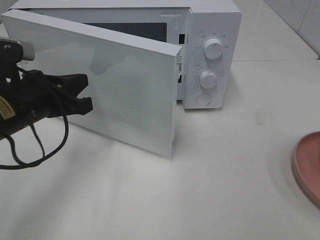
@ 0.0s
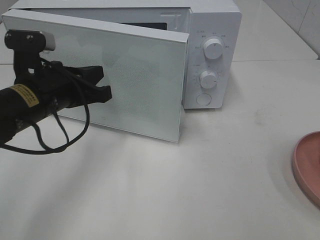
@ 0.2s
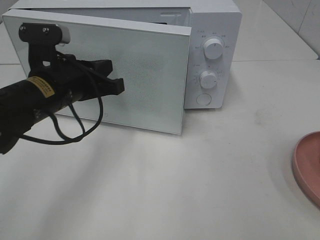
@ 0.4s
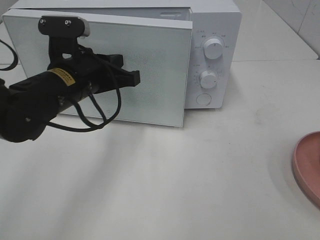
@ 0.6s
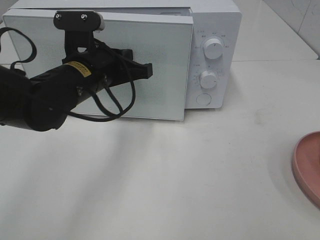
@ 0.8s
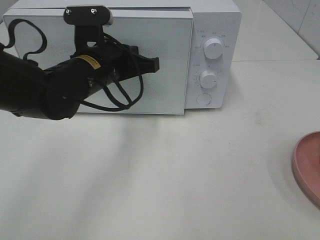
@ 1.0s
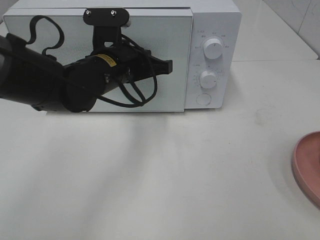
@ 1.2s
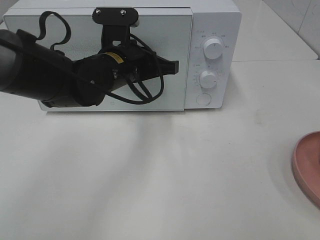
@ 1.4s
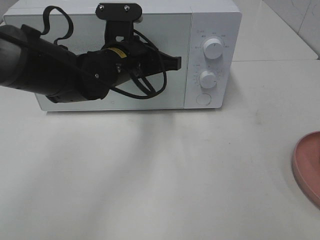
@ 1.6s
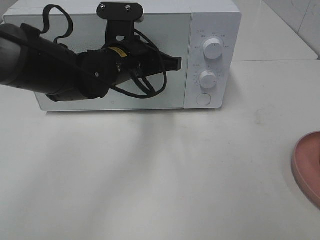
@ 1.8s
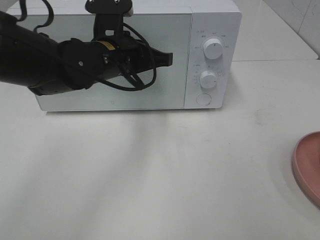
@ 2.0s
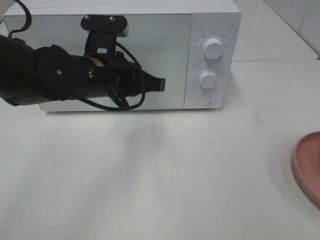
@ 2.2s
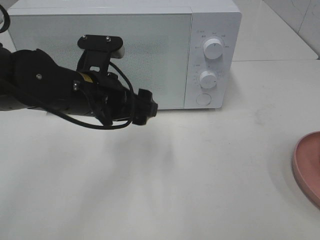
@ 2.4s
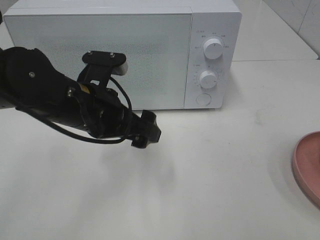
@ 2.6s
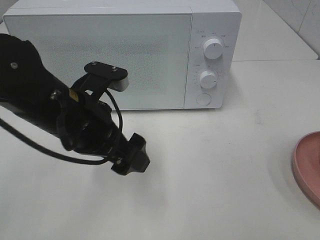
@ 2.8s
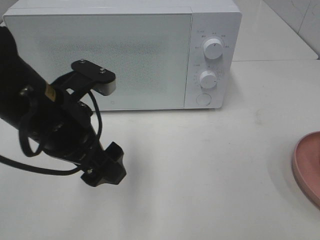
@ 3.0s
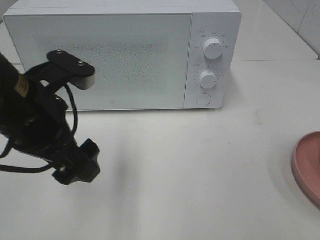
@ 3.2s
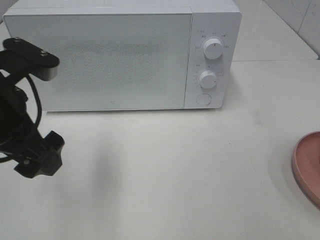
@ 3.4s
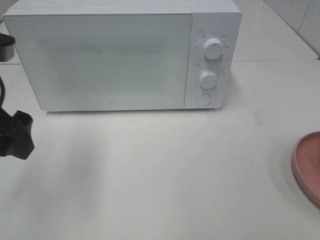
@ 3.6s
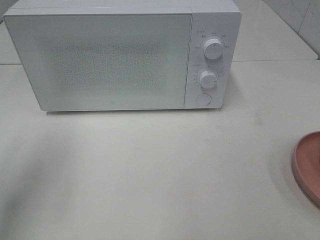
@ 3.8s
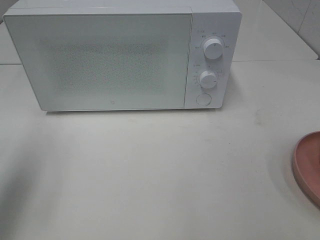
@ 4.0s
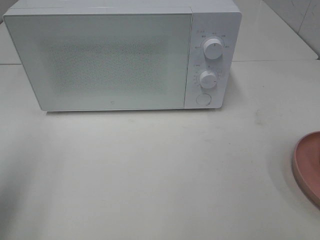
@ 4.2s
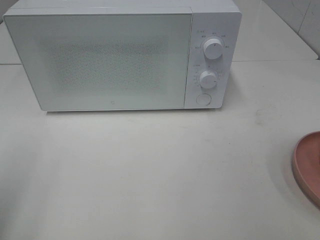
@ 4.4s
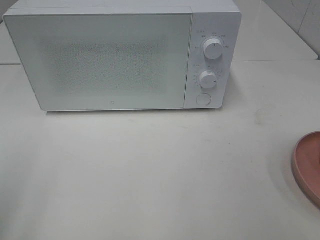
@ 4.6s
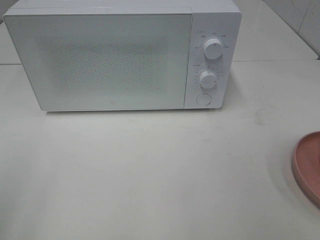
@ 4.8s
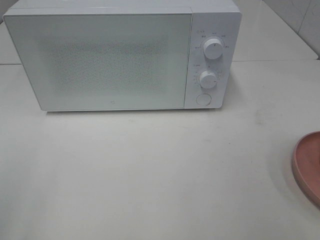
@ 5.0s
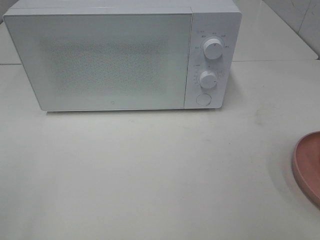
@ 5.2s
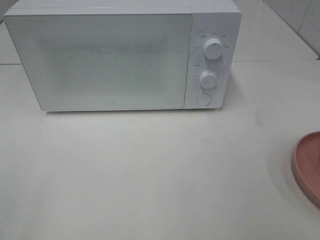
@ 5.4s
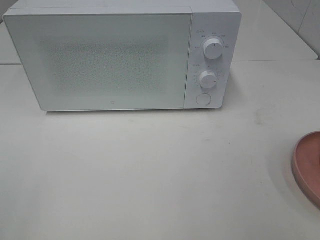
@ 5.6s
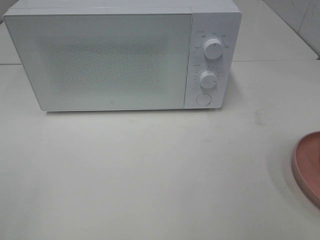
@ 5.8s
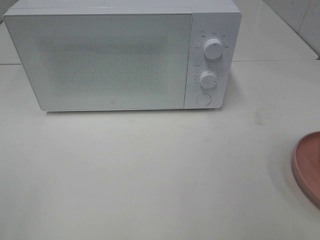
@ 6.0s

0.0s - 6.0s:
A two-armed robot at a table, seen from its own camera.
Task of the whole recording: Heat the burger.
Step, 0.0s - 2.0s: Left hand: close the microwave door.
0.0s - 1.6s: The left gripper shifts about 15 cm to the right and forward.
1.6s - 3.0s: The left gripper travels backward and to the left by approximately 15 cm, and opens its fingers.
3.0s - 4.4s: The left gripper goes about 20 cm to the left and backward.

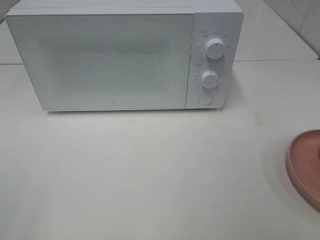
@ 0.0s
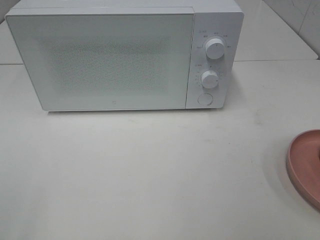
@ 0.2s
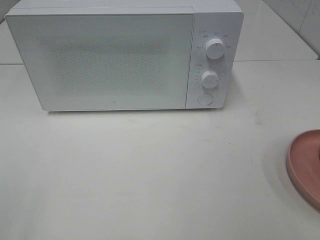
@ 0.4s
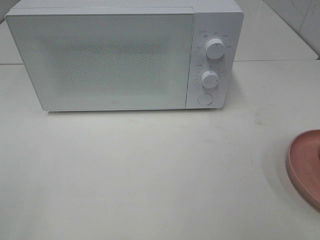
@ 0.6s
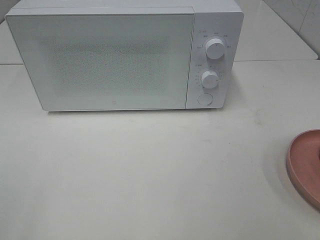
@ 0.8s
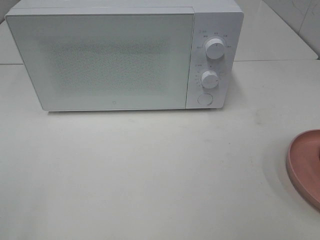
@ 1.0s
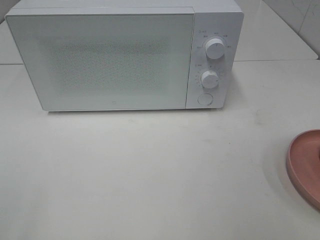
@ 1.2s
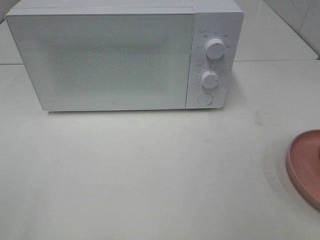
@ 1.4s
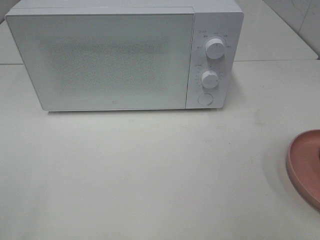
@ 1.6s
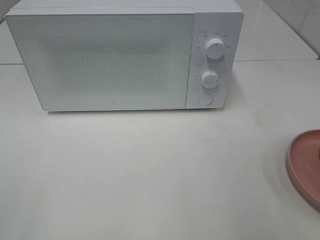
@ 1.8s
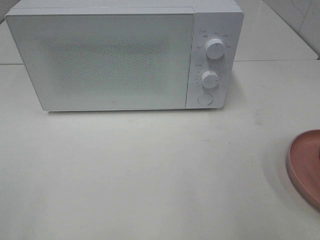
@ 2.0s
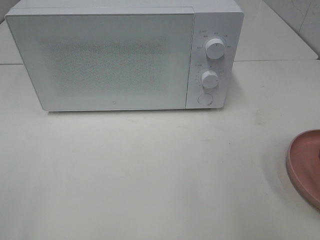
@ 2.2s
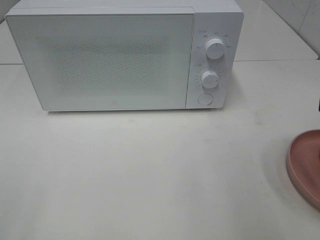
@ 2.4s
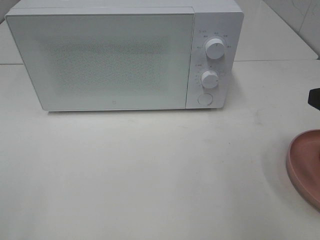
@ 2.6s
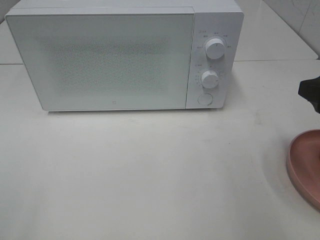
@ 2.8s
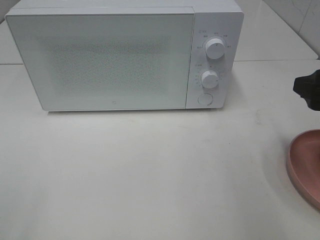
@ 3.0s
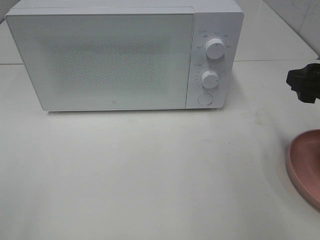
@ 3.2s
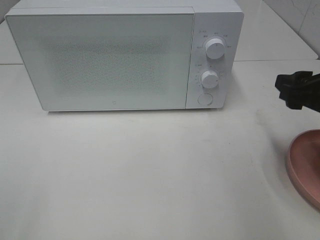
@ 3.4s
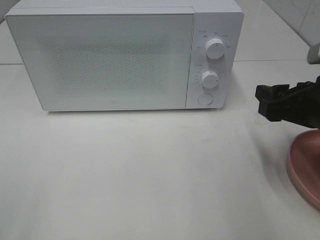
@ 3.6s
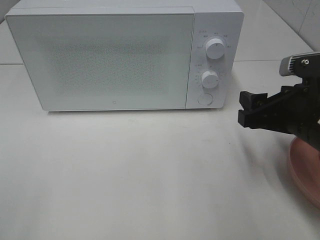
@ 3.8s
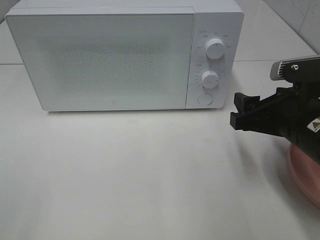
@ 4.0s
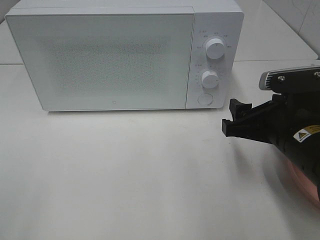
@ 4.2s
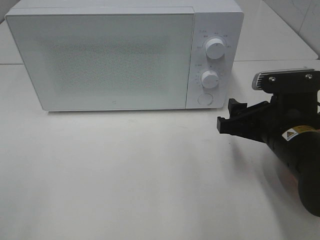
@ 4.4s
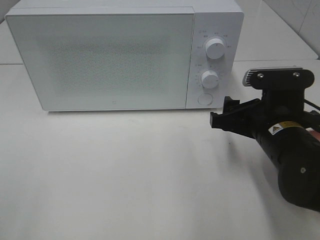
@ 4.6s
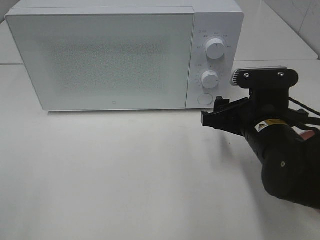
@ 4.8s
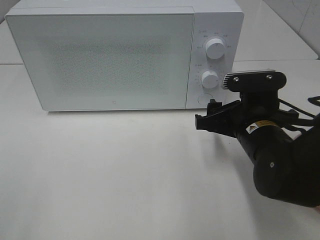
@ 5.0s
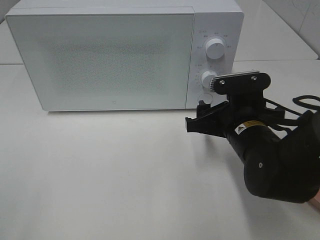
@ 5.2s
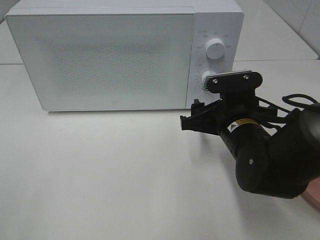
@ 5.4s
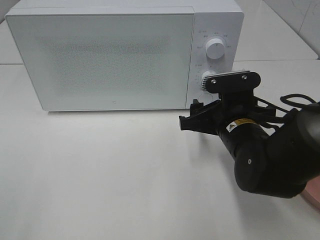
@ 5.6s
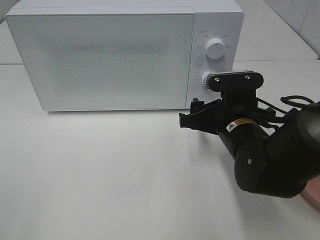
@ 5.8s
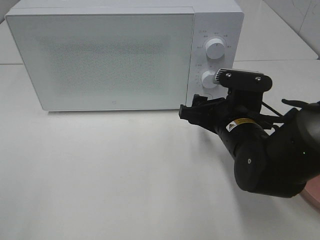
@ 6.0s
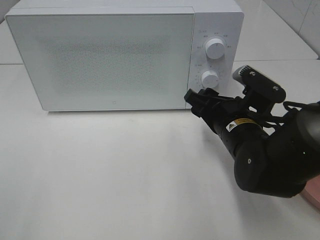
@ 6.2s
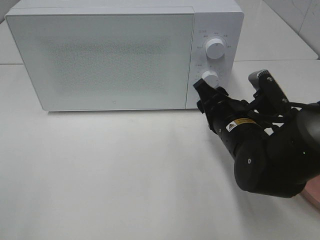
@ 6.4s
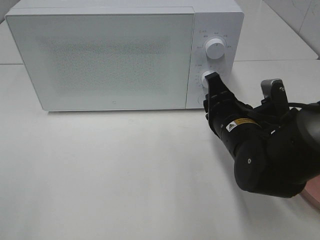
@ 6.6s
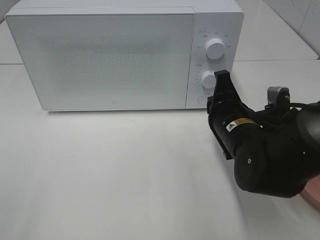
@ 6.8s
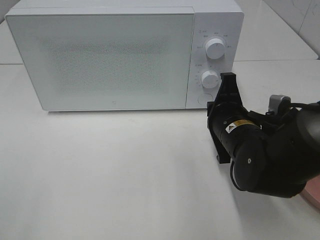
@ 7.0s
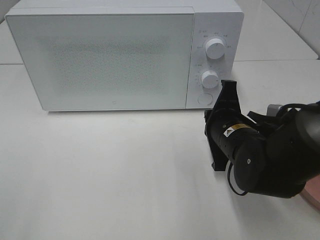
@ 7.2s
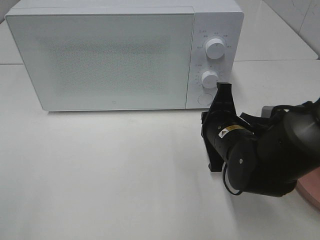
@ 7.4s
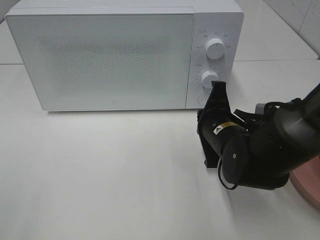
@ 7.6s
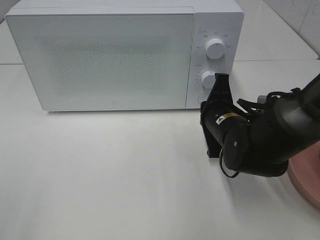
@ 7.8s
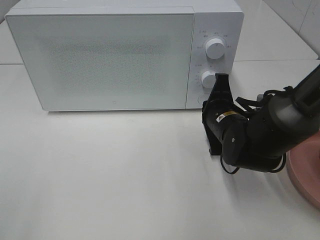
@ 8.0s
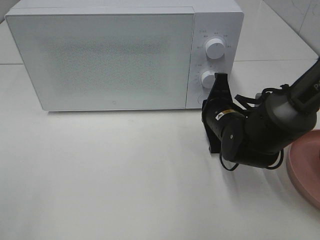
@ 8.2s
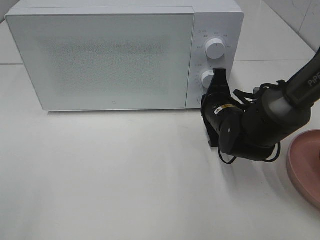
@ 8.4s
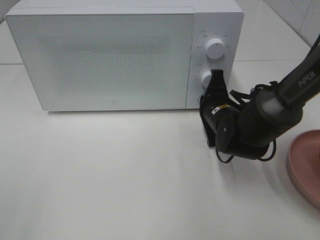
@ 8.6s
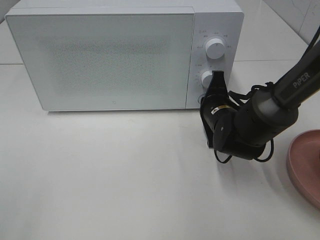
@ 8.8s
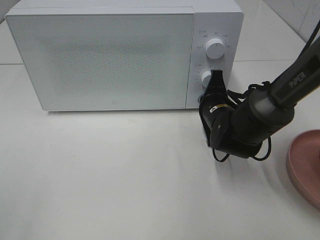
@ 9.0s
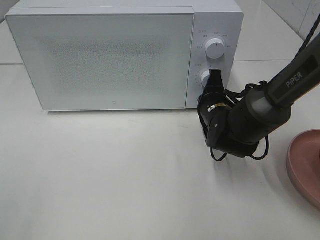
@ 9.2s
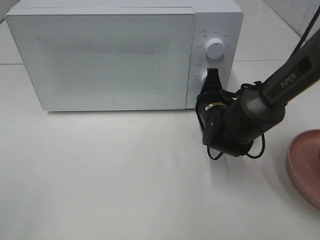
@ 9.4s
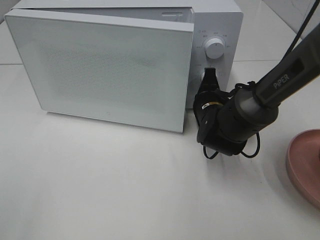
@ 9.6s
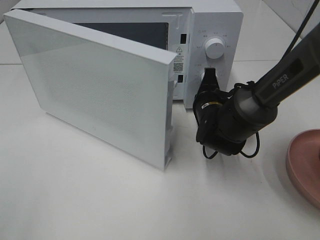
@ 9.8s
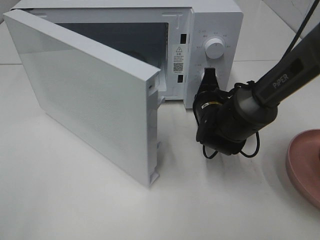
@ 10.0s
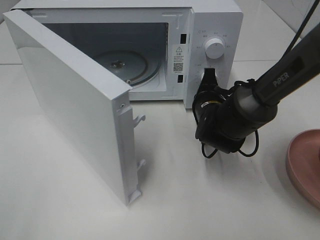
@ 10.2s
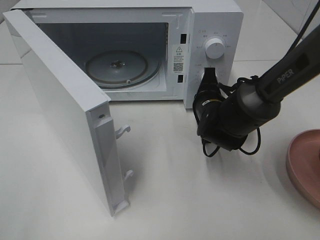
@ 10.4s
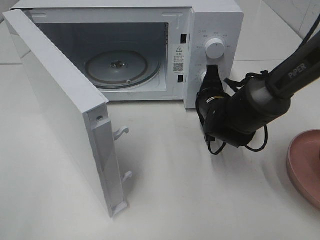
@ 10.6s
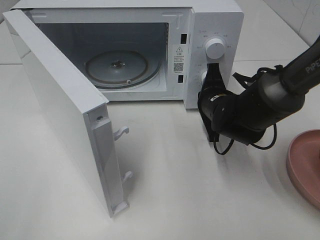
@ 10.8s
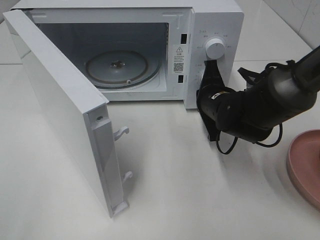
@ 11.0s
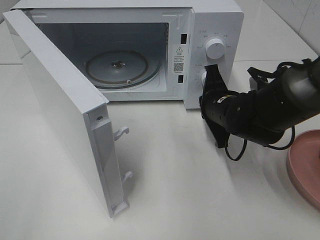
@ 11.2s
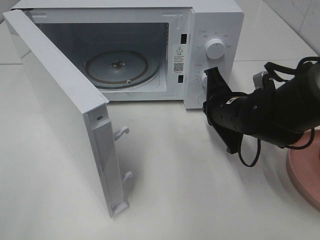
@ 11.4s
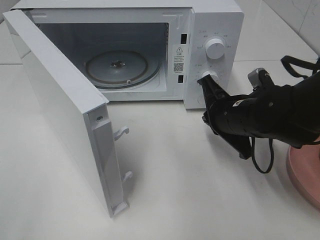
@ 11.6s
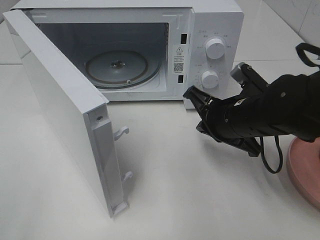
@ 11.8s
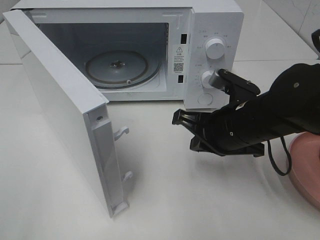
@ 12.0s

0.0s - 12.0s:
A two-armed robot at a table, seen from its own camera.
Task of the whole recording: Heat the burger.
Step, 0.0s - 11.0s: Right hand: press the switch.
1.6s - 3.0s: The right gripper is displaced forward and downward by about 15 cm.
3.0s - 4.4s: The right gripper goes some 10 cm to the left and downward.
4.4s - 6.0s: The right gripper changes place by about 10 cm.
6.0s - 7.6s: The right gripper closes its fingers.
7.6s - 9.0s: The right gripper moves forward, about 5 cm.
10.4s - 12.0s: The right gripper goes roughly 10 cm backward and upward.

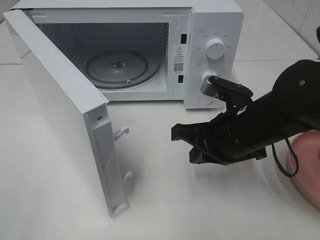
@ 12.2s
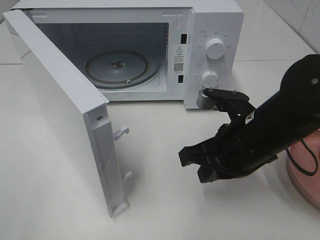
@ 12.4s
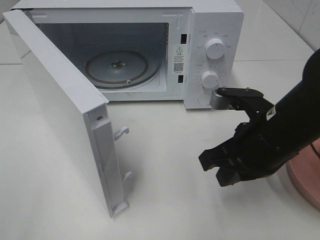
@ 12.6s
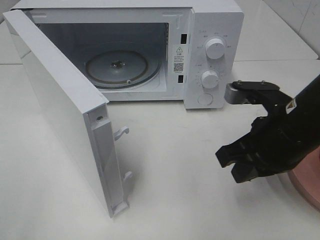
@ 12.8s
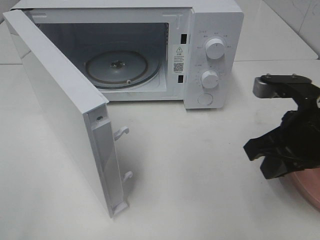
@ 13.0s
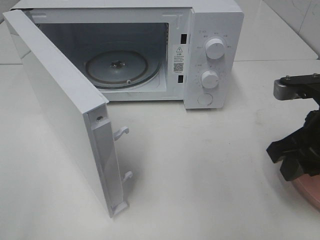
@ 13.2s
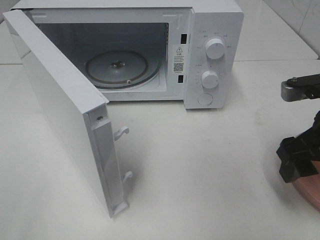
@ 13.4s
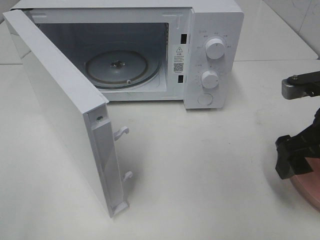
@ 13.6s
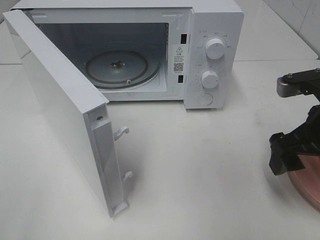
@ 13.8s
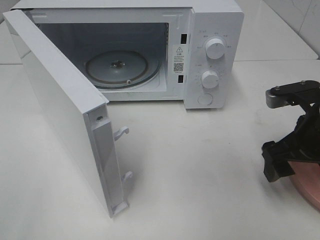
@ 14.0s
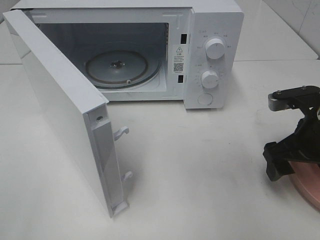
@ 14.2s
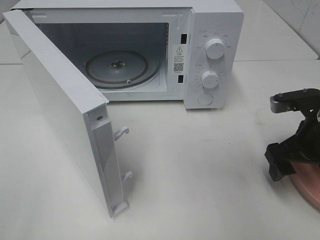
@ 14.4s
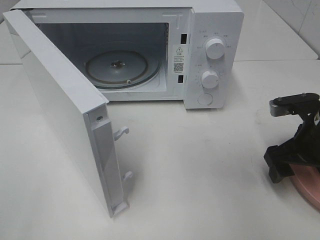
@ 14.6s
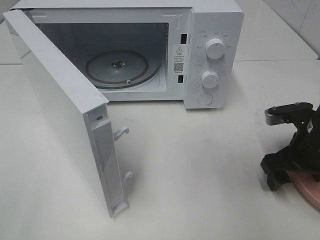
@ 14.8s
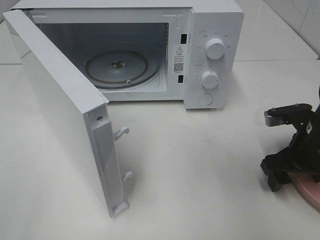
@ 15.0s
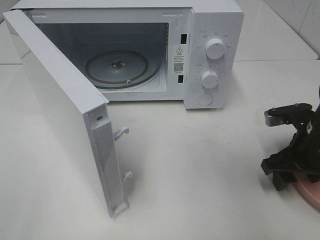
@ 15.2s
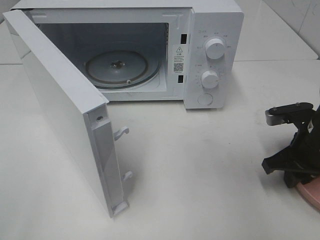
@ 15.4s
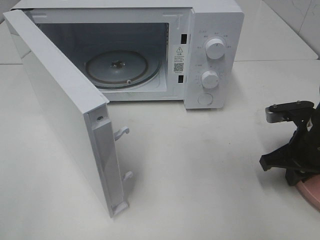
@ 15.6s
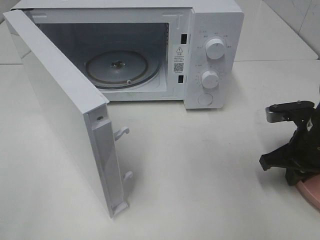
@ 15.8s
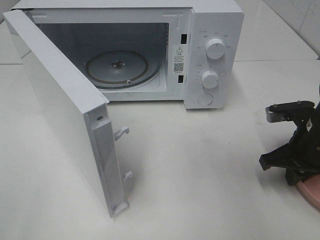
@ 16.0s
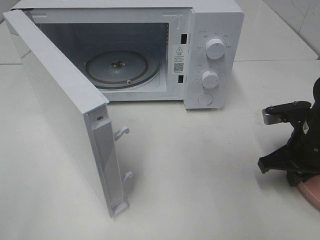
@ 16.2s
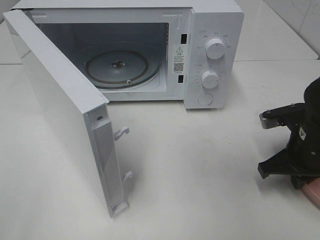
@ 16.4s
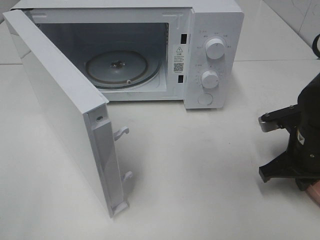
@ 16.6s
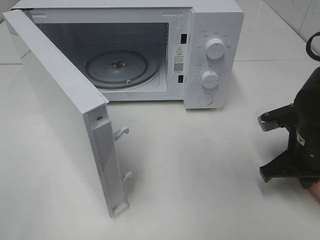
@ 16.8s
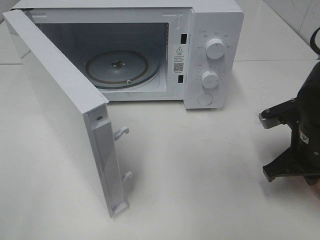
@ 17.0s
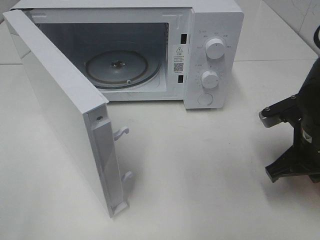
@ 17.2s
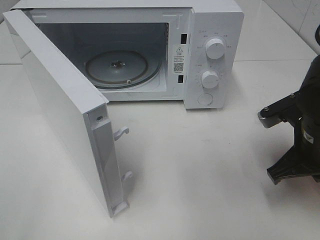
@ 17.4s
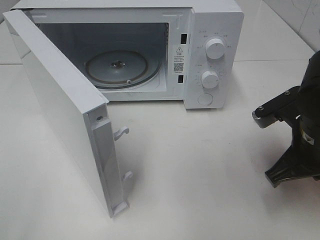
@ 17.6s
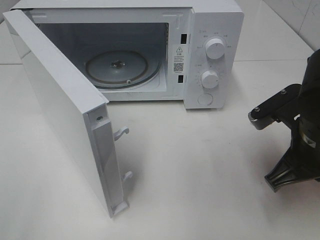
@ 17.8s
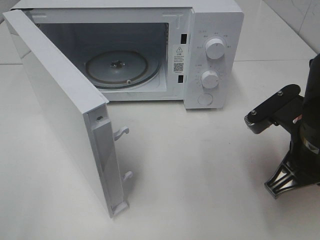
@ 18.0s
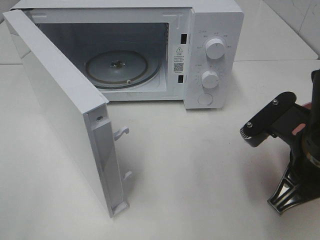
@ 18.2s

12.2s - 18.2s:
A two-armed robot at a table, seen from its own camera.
Task of the whole recording: Heat the burger.
Step, 12.2s - 15.8s: Right hand: grab the plate with the hamburger.
12.2s - 13.8s: The right gripper moves to the right, about 10 cm, and opens.
13.8s - 15.2s: The right gripper shifts approximately 10 cm downward.
15.2s - 16.6s: The right gripper closes.
16.6s - 18.2s: The right gripper is displaced backward, upward and to the left by some 15 cm.
